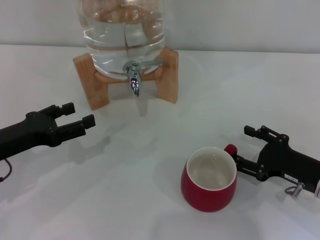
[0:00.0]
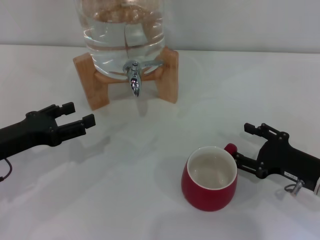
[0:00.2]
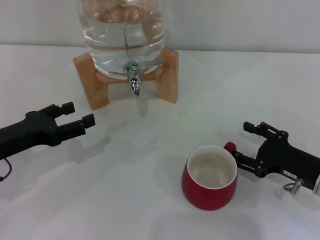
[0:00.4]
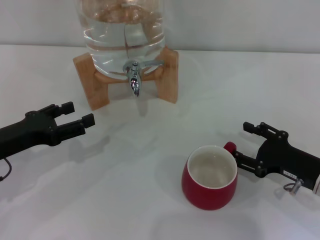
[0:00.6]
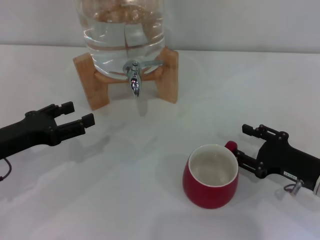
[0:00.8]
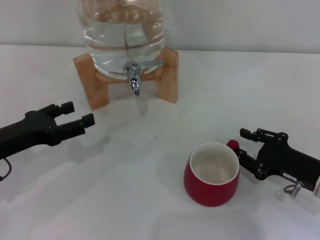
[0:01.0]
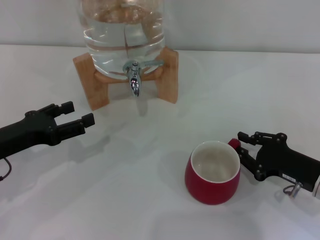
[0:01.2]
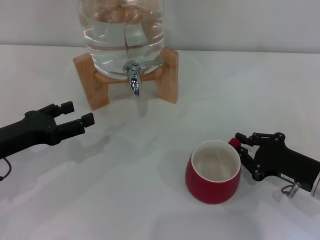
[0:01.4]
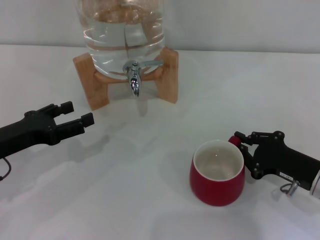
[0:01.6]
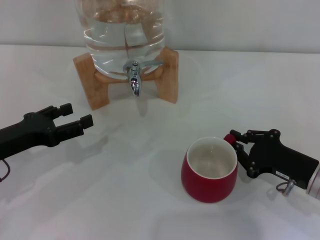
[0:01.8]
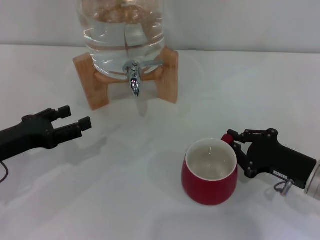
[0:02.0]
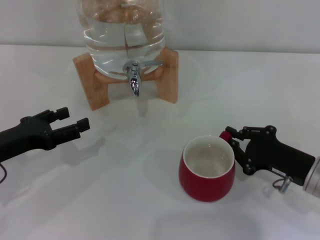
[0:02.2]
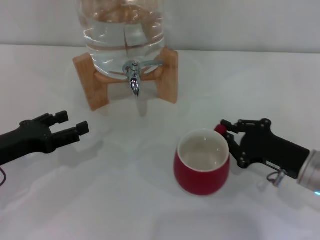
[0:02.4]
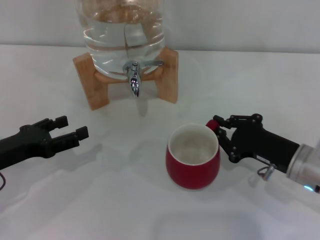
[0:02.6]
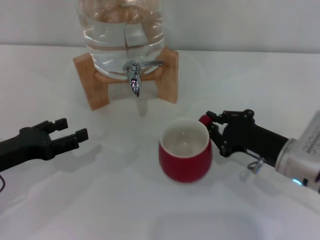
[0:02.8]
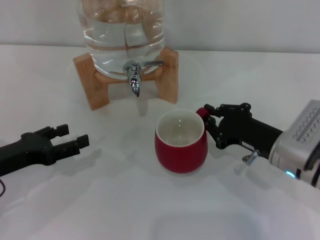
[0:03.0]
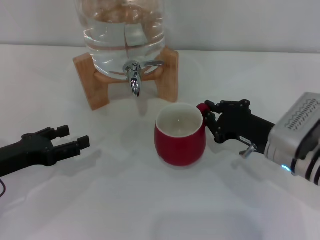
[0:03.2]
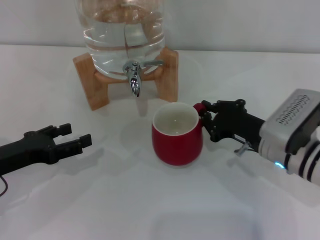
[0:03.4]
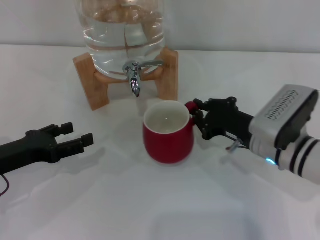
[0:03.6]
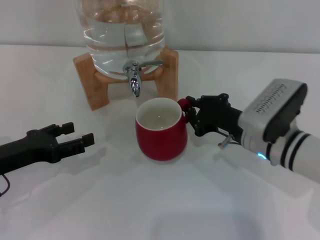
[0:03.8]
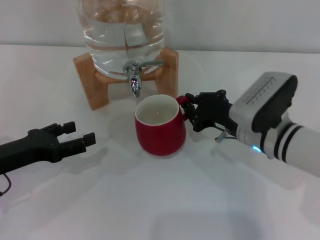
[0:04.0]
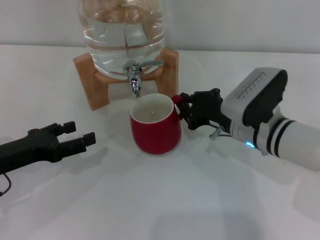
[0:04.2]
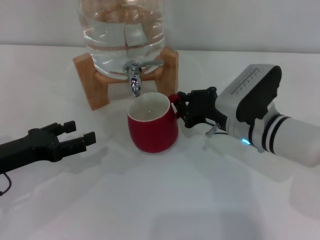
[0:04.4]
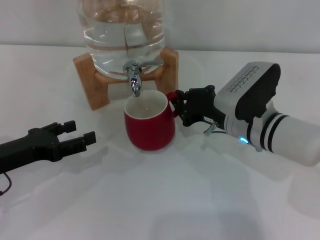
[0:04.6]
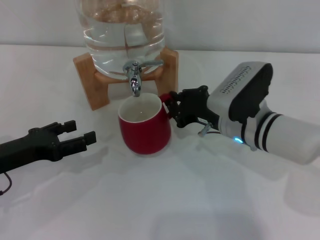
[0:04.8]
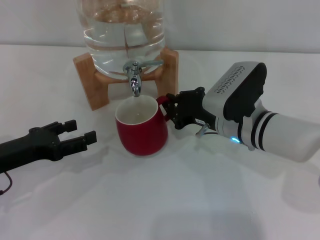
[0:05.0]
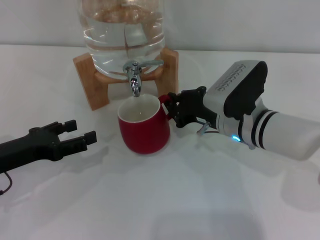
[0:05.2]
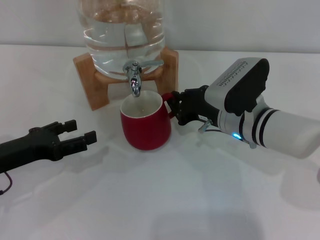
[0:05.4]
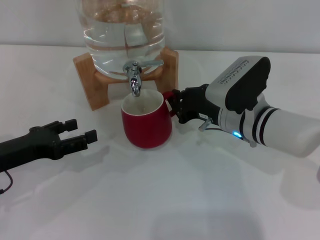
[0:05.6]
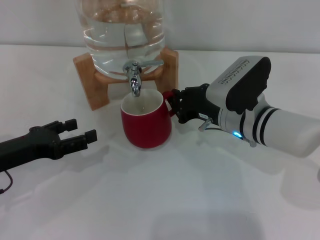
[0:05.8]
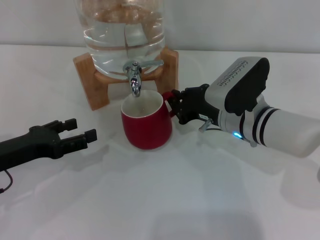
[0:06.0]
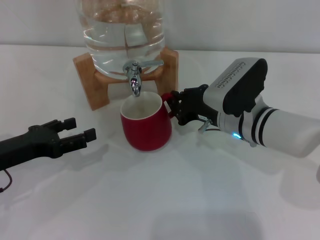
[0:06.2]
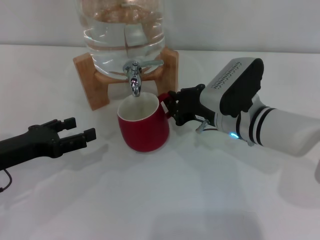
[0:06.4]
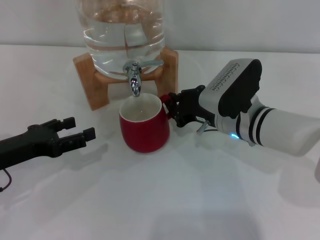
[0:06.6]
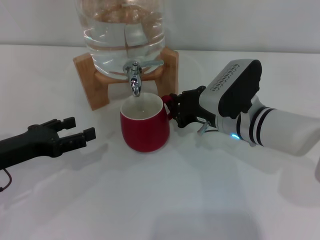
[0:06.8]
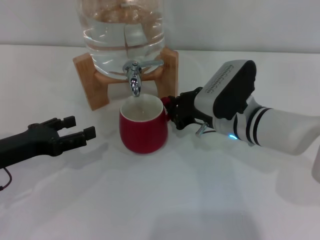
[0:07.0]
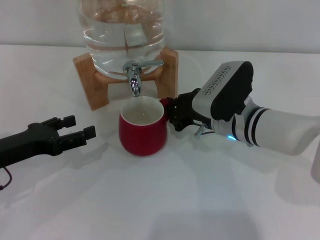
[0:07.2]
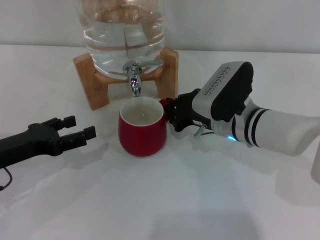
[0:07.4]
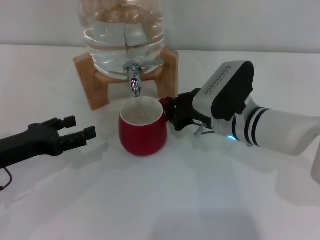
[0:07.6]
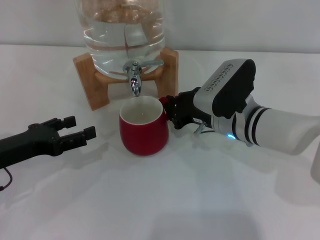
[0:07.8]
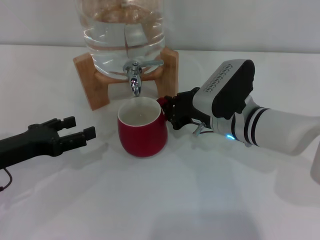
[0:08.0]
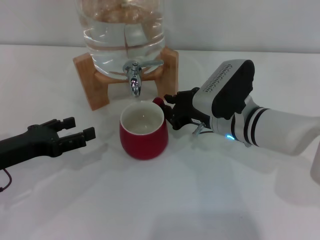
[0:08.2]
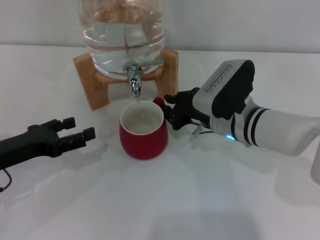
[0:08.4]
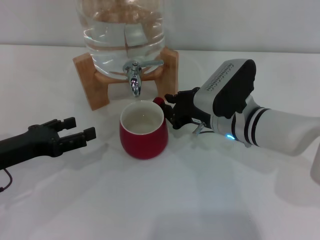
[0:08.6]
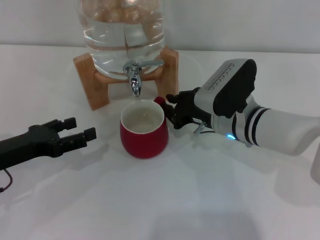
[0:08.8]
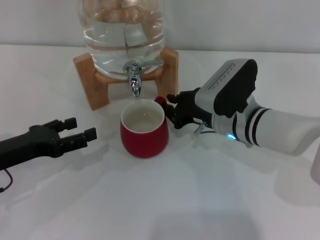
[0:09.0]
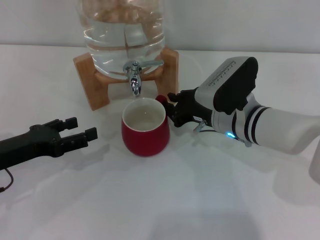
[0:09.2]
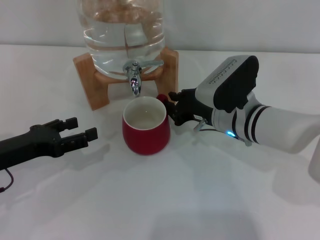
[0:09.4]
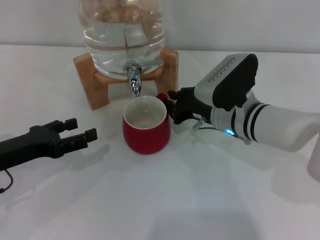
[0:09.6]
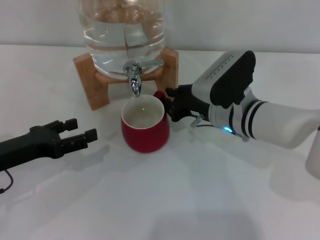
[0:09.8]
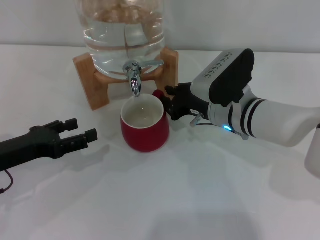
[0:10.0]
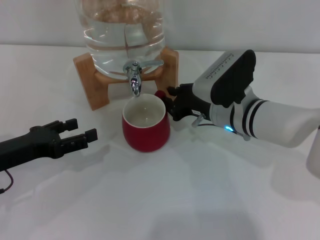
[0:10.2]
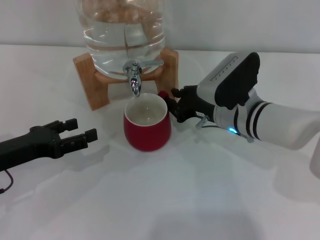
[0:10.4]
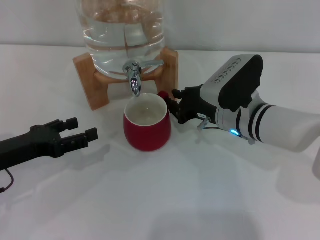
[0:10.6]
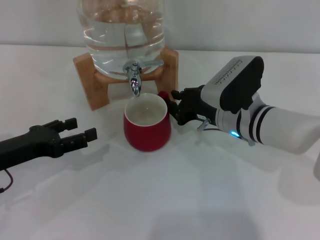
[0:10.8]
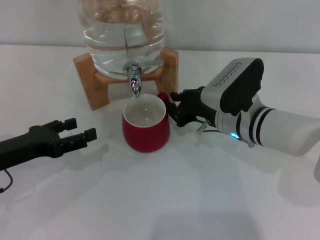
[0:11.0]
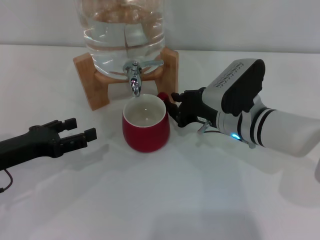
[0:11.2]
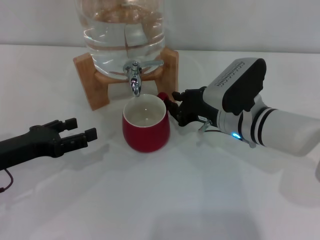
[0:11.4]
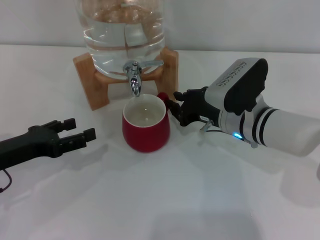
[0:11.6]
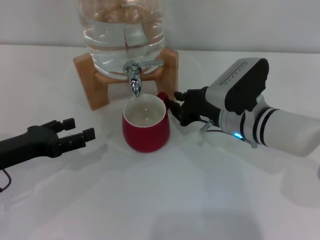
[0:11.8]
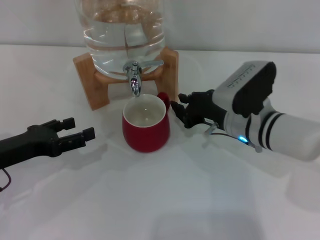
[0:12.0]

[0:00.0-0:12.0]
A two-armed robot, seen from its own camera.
Task of the whole recording: the right gripper pick up the red cup and place it horizontally under the faucet, the left gripper turn on the faucet to fill the cup, and then turn off the faucet.
0:00.0 to 0:01.6: The right gripper closes its fingers.
0:01.6 to 0:03.0: The right gripper travels to the left by about 5 cm.
0:03.0 to 0:04.4: The right gripper shifts approximately 10 cm to the left and forward.
0:04.4 to 0:07.6: There are only small adjustments of the grippers.
0:07.6 to 0:09.0: Neither gripper changes place.
0:09.0 to 0:10.4: Both grippers stay about where they are.
0:10.4 to 0:12.0: The grippers move only a little.

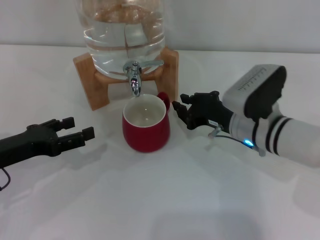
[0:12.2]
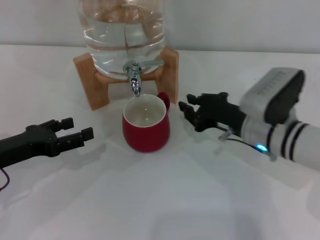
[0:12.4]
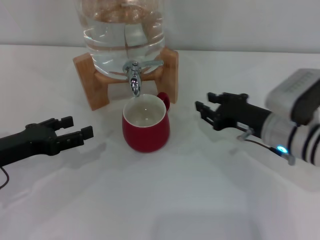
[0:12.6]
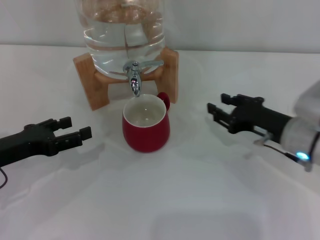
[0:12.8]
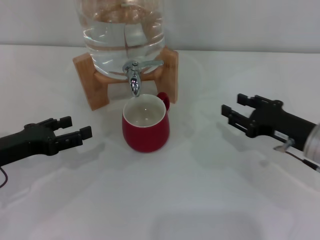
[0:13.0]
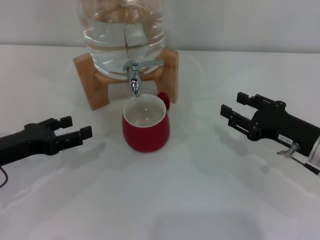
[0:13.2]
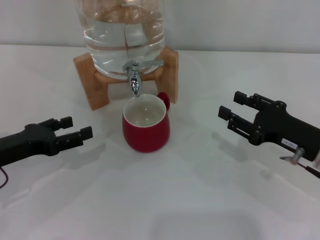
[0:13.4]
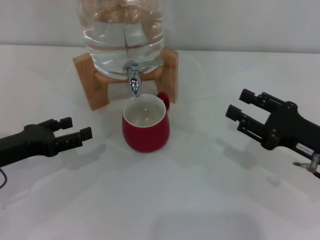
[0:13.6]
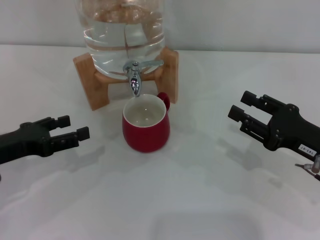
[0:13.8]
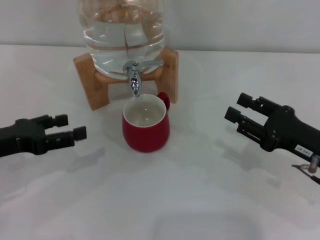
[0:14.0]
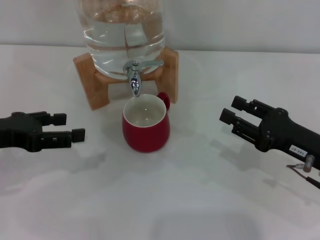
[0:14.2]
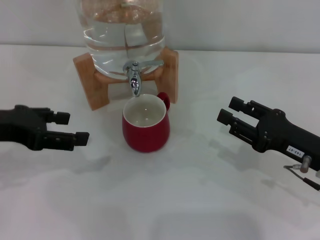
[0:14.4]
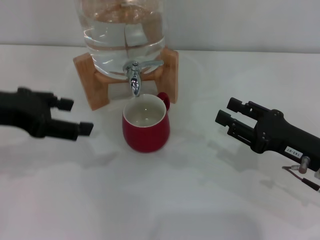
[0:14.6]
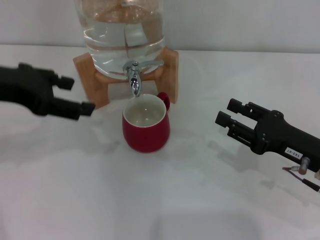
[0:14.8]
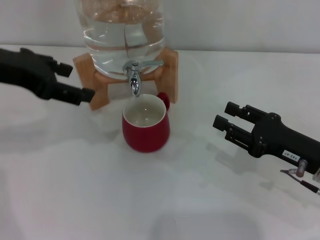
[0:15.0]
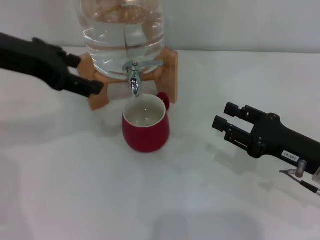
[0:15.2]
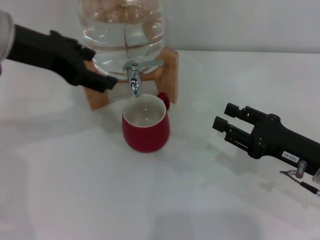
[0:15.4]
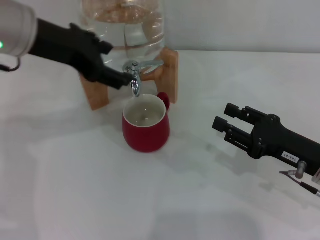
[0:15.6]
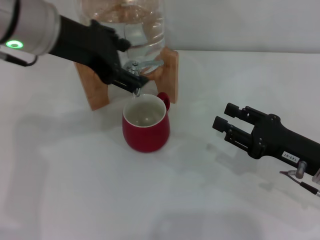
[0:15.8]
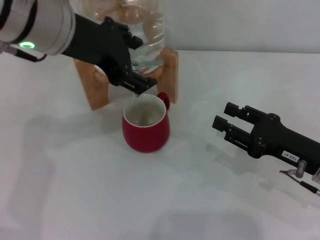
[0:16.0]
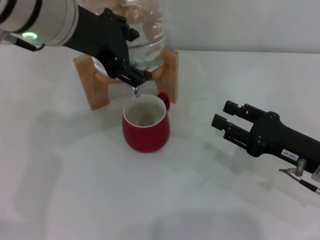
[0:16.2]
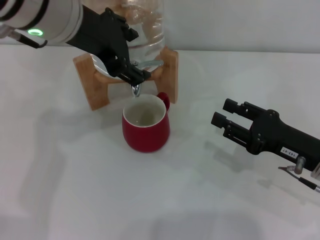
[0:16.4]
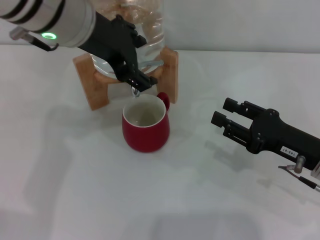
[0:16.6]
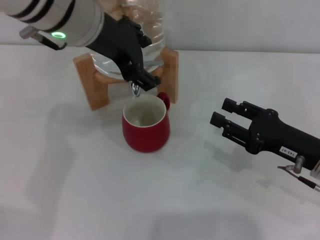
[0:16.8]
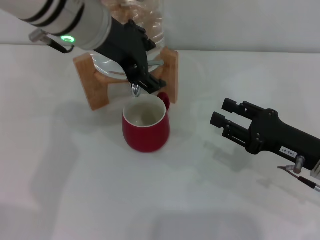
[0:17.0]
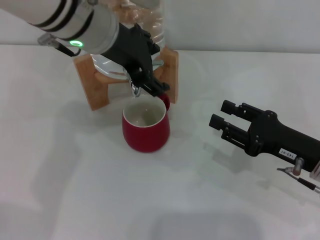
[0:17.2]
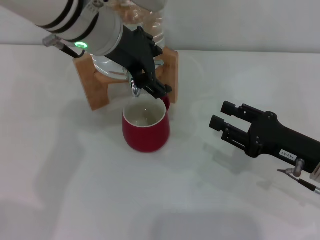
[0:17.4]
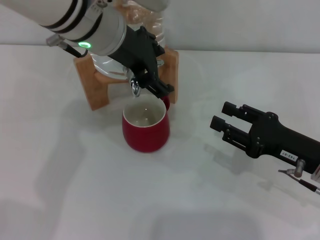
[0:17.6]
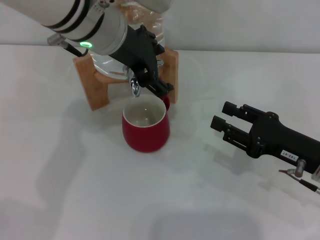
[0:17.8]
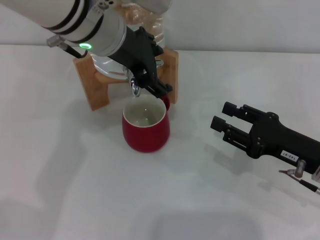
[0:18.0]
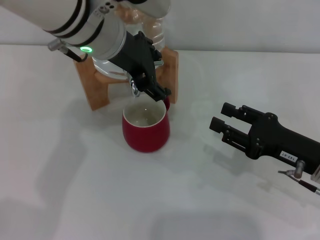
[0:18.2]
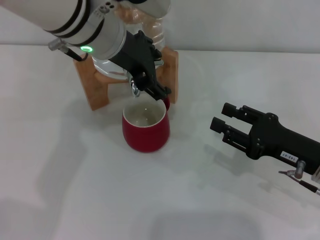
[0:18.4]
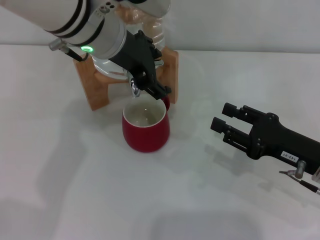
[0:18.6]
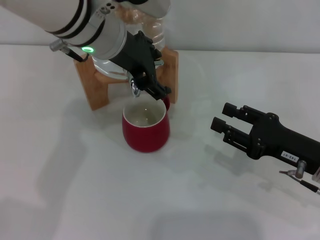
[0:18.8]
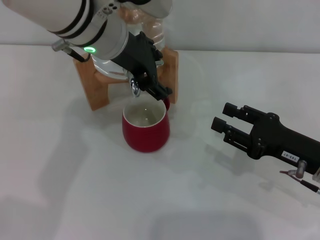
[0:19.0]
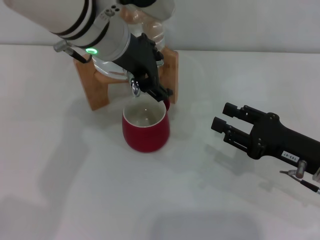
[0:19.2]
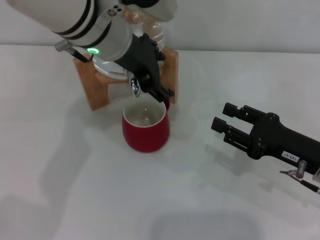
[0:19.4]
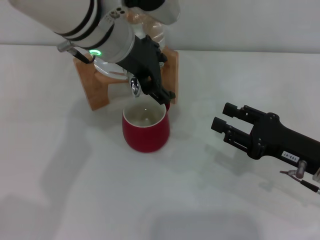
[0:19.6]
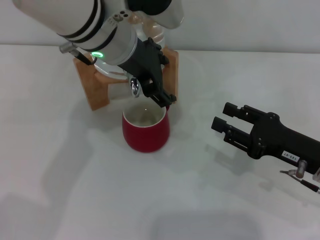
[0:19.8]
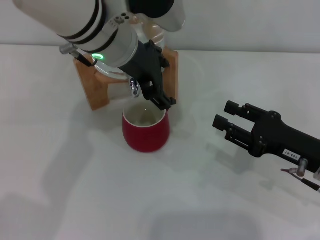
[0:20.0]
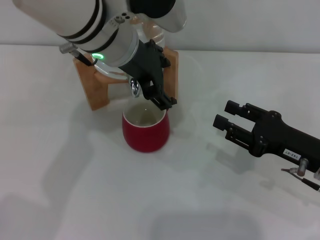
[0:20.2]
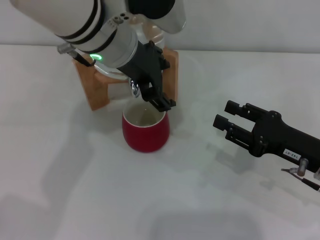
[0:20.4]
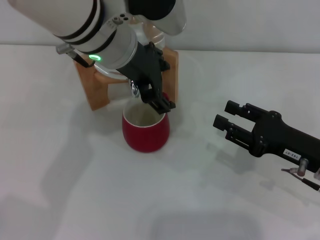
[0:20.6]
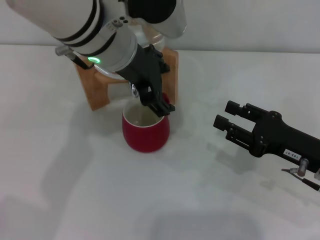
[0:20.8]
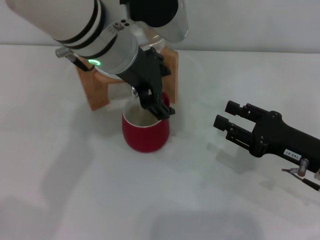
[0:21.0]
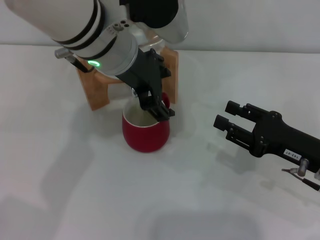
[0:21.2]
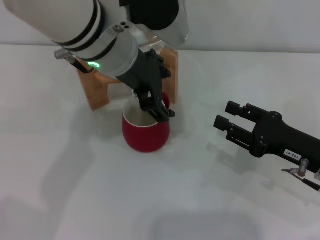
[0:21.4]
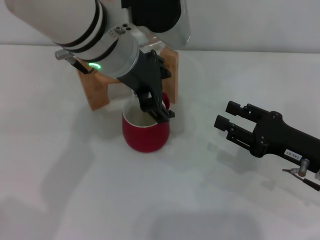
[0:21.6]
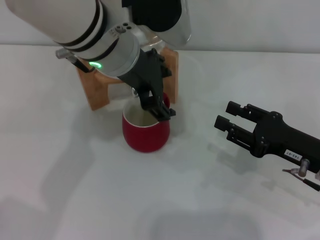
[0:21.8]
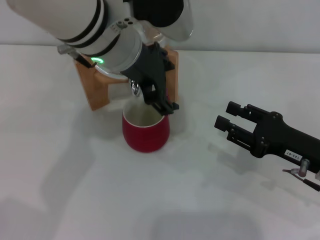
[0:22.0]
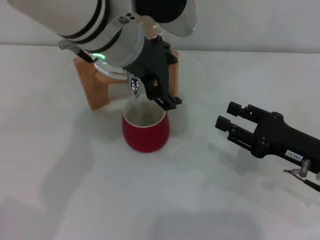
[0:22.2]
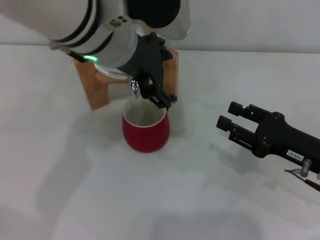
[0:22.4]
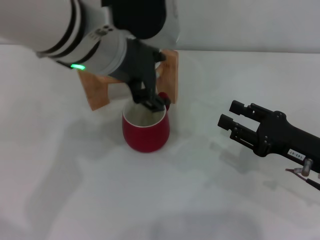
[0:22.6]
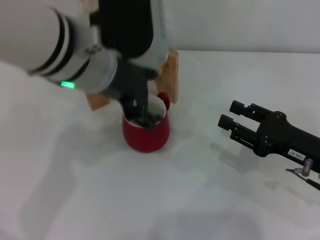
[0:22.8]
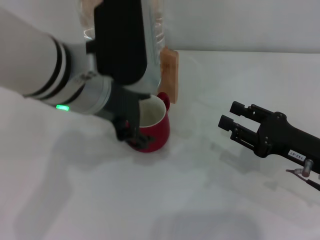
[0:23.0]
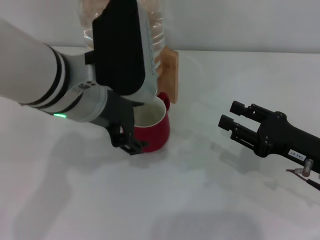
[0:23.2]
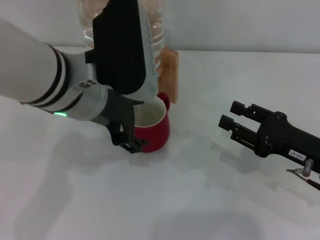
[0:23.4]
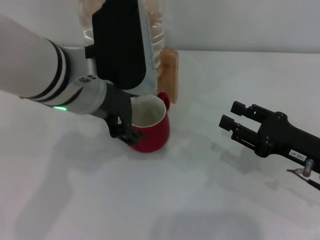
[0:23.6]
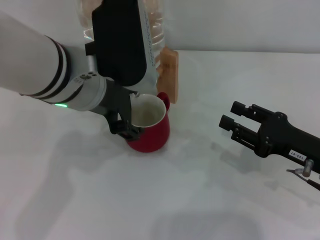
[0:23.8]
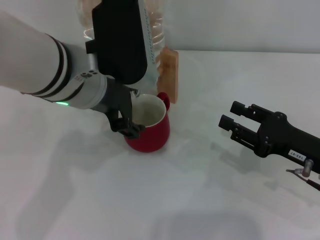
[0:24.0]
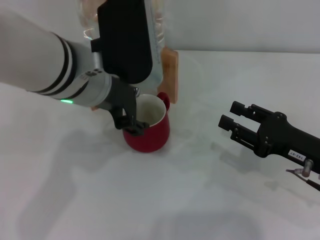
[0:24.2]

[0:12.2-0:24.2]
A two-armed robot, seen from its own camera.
Task of the whole recording: the right gripper pick up the red cup and place it horizontally under the faucet, the left gripper turn on the faucet to fill the cup, and then turn off the faucet.
Step, 0:12.4 to 0:23.2: Open the dispenser valve and fill the cup with water with the left gripper.
0:12.2 to 0:13.8: The right gripper moves to the right and backward, about 15 cm, and opens its fingers.
0:13.8 to 0:15.2: The left gripper travels upward and to the right by some 20 cm.
0:15.2 to 0:16.6: The left gripper shifts about 10 cm to the right.
0:16.6 to 0:18.2: The grippers make only small movements.
0:18.2 to 0:19.8: Neither gripper changes place.
0:19.8 to 0:22.6: The grippers stay close to where they were, moving slightly.
0:22.6 to 0:24.2: The grippers stay close to where they were, moving slightly.
